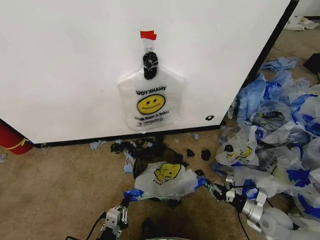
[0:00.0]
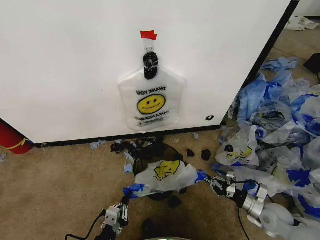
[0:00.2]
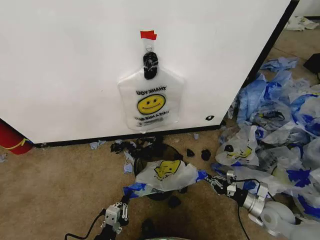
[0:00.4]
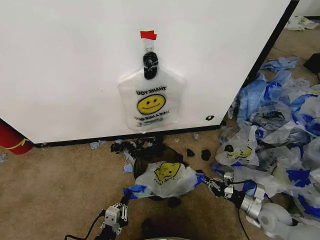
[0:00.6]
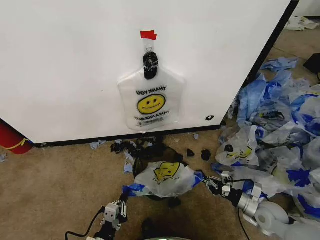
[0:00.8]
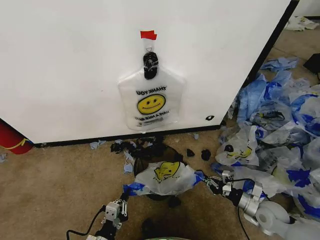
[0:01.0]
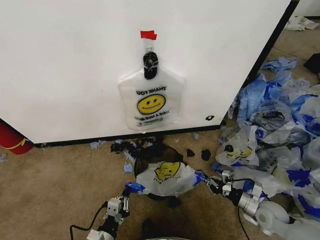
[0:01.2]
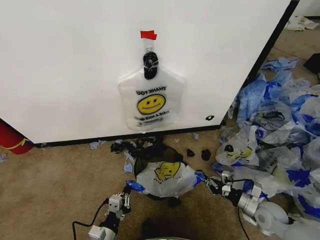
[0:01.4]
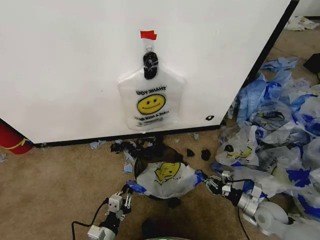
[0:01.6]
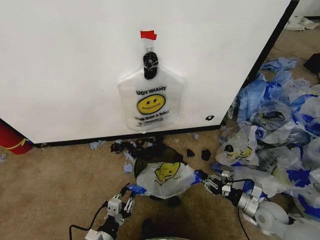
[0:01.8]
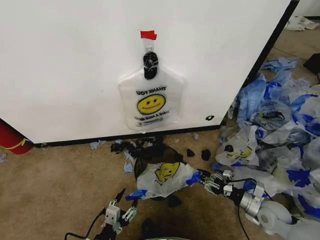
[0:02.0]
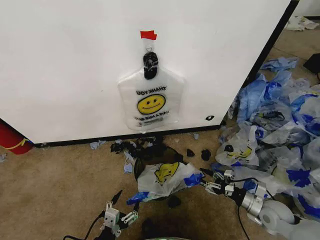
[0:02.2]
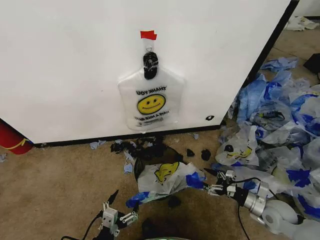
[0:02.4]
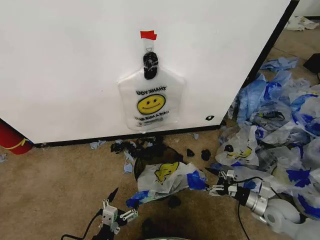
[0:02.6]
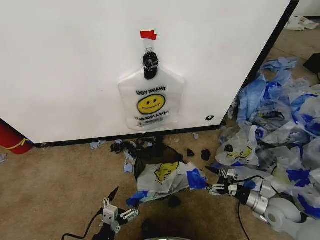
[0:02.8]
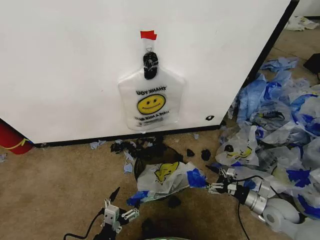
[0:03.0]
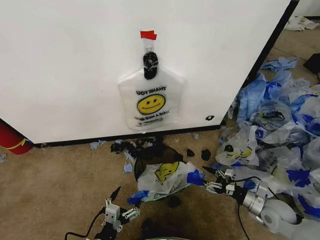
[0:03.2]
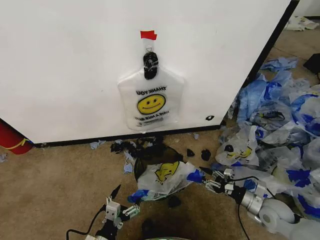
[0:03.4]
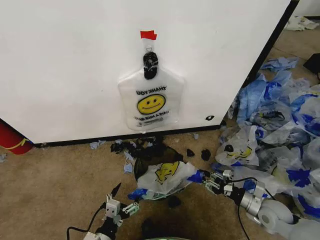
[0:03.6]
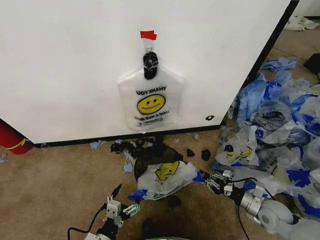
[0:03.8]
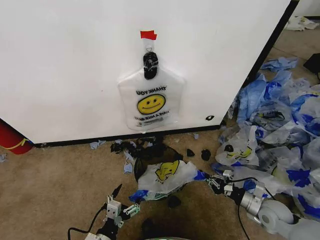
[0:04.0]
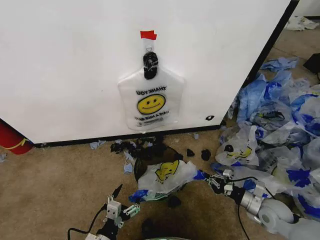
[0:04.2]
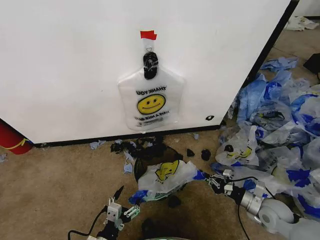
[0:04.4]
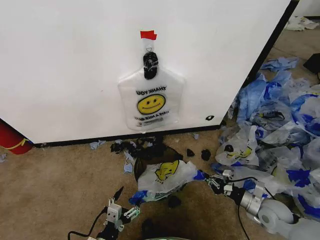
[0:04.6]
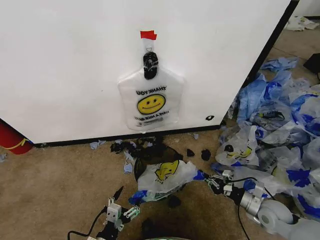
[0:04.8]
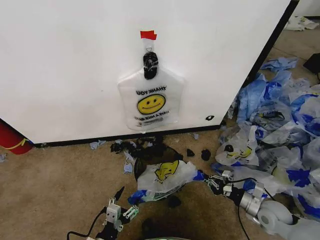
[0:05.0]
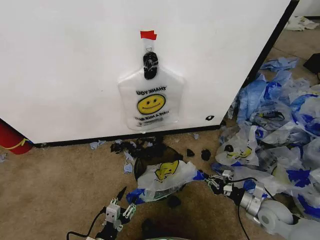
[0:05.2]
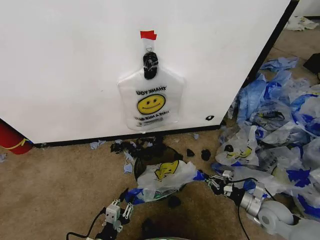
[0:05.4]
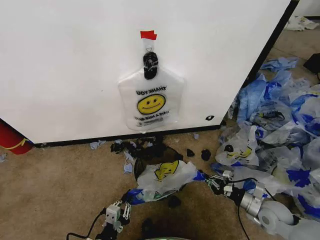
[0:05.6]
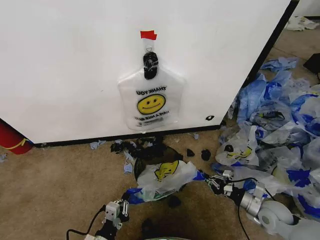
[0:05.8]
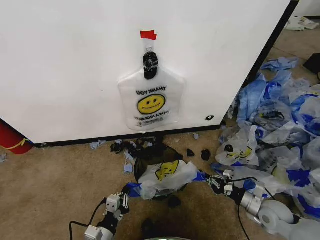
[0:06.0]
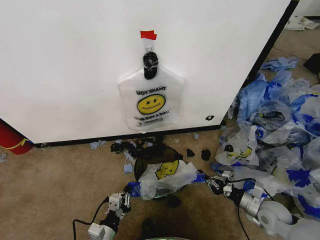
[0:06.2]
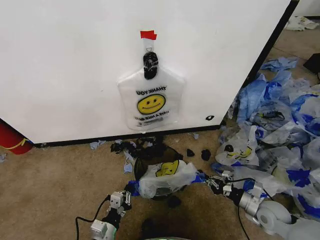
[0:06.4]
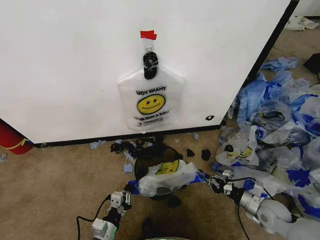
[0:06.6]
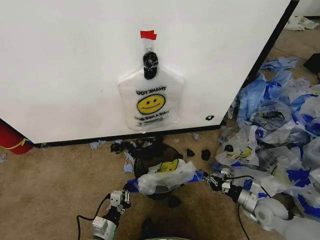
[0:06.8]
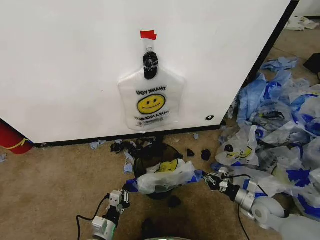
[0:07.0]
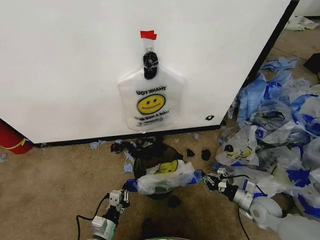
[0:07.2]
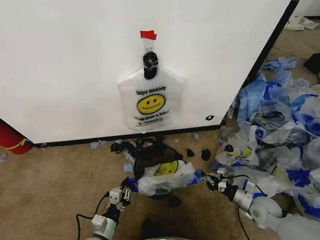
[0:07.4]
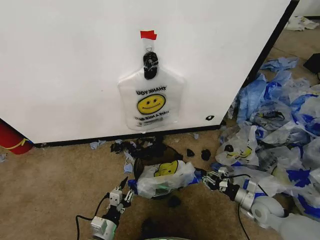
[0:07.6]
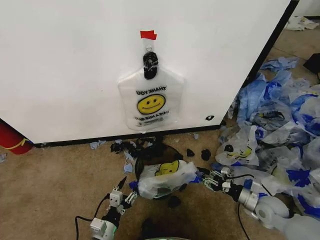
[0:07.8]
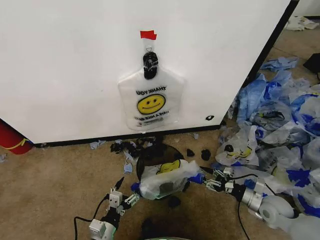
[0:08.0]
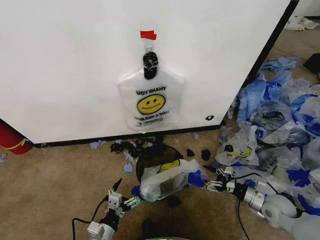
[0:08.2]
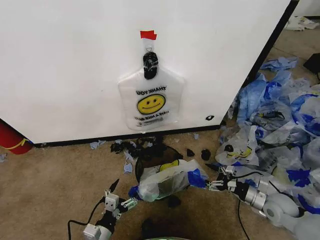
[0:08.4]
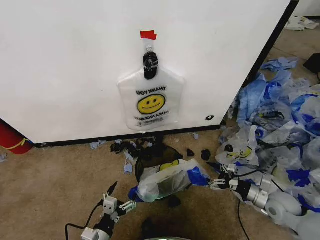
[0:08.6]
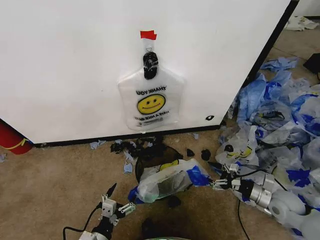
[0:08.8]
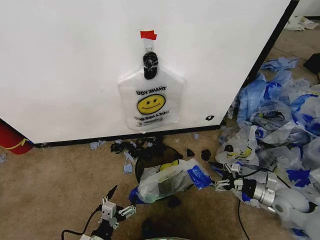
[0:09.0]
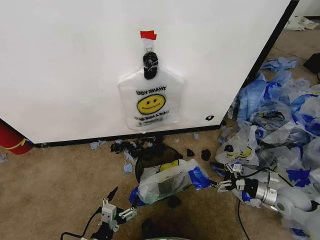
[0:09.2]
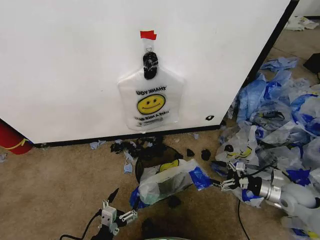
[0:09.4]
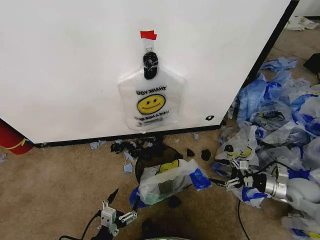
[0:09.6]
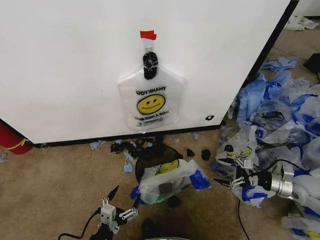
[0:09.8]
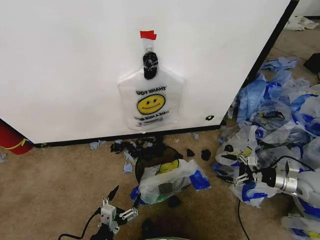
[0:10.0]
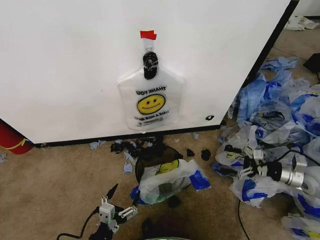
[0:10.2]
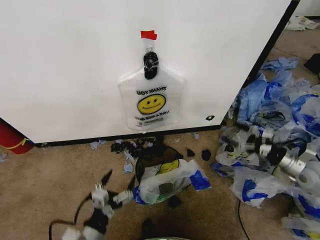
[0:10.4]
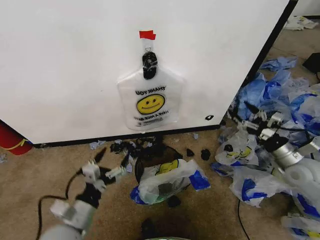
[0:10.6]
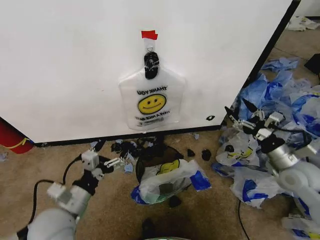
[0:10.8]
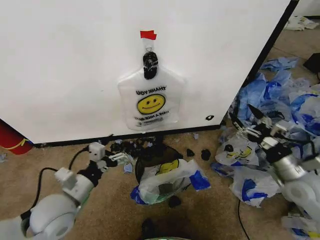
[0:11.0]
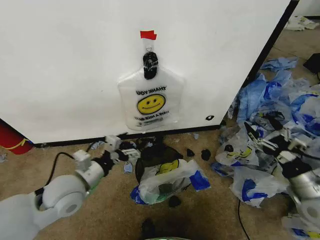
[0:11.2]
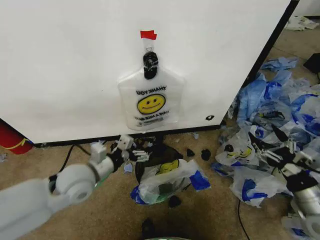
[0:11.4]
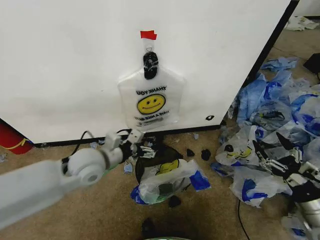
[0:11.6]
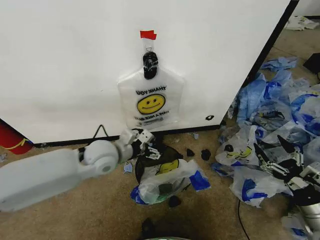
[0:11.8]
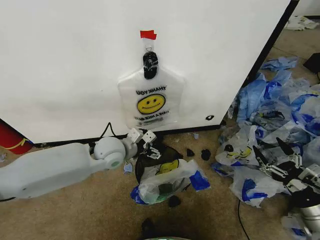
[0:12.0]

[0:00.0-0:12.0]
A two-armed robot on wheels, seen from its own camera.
Task of the whole recording: Pick up the garbage bag from the wall and place it over the trash bin.
0:00.0 to 0:01.6: There are only small adjustments of the grippers.
0:01.6 to 0:03.0: The right gripper opens its fingers, while the left gripper opens its fingers.
0:03.0 to 0:04.4: The right gripper closes.
0:04.4 to 0:06.0: The left gripper closes.
0:06.0 to 0:07.6: The left gripper opens up.
0:07.6 to 0:09.0: The left gripper is displaced backward by roughly 5 cm, and opens its fingers; the right gripper moves upward, roughly 5 cm, and opens.
0:09.0 to 0:10.4: The left gripper goes about 5 cm upward. Meanwhile the right gripper heads upward and to the right, covering approximately 10 cm.
0:10.4 to 0:12.0: The left gripper heads forward and upward, covering approximately 30 cm. Meanwhile the right gripper shifts approximately 15 cm backward.

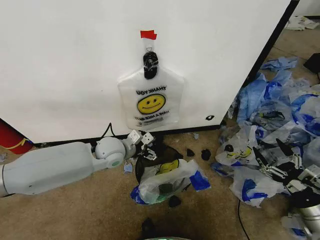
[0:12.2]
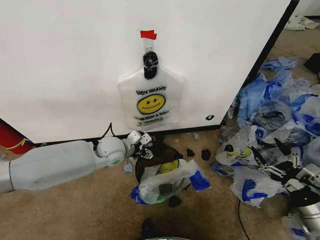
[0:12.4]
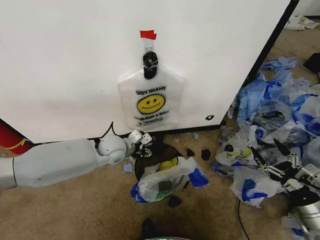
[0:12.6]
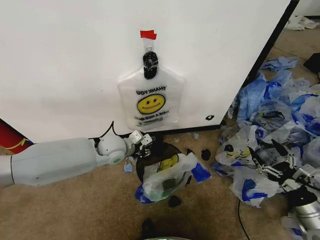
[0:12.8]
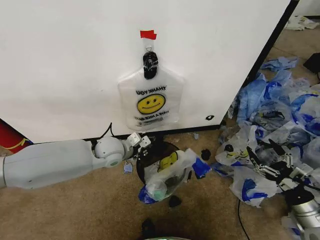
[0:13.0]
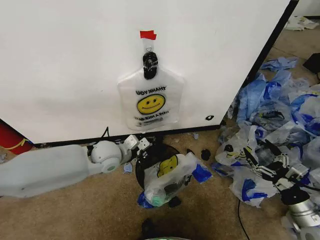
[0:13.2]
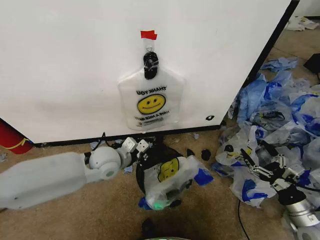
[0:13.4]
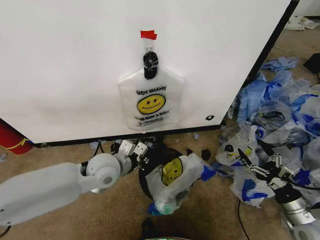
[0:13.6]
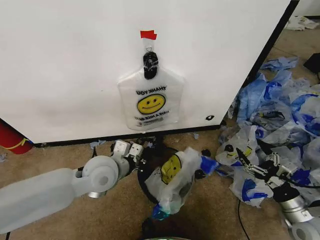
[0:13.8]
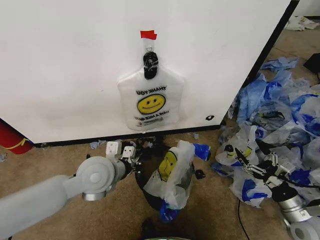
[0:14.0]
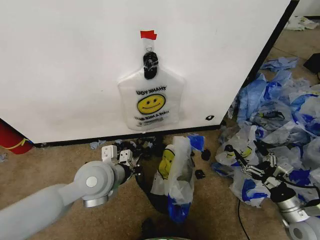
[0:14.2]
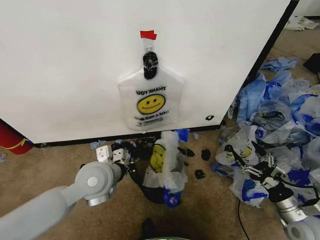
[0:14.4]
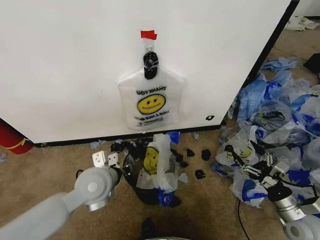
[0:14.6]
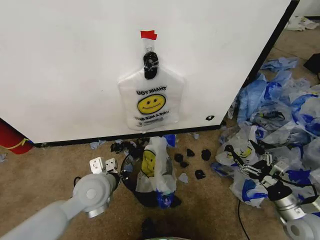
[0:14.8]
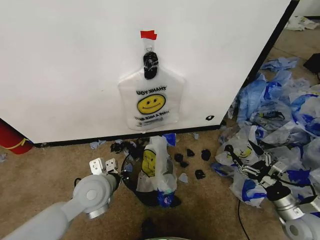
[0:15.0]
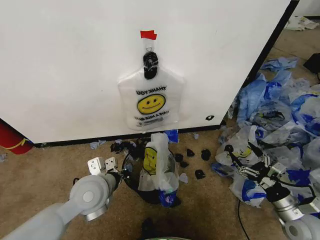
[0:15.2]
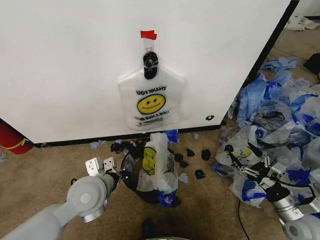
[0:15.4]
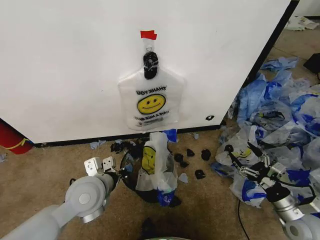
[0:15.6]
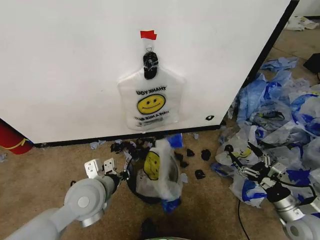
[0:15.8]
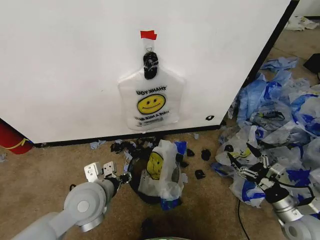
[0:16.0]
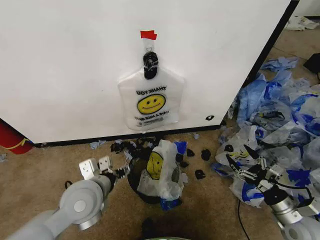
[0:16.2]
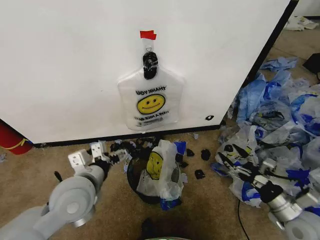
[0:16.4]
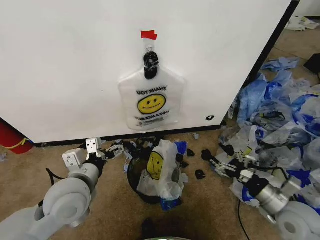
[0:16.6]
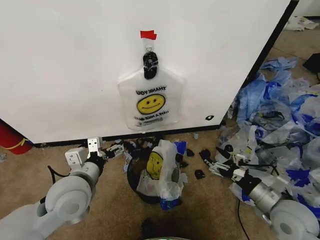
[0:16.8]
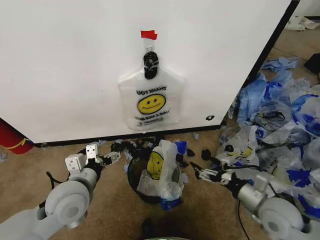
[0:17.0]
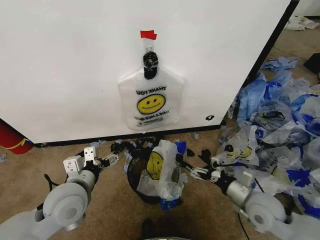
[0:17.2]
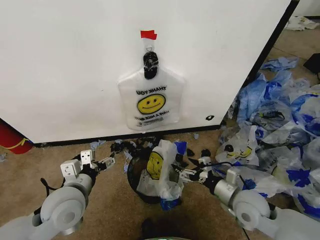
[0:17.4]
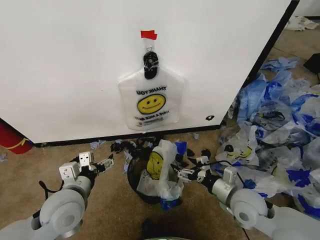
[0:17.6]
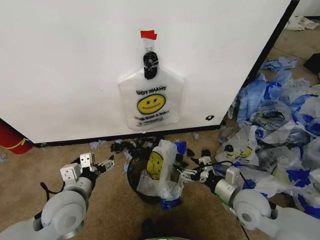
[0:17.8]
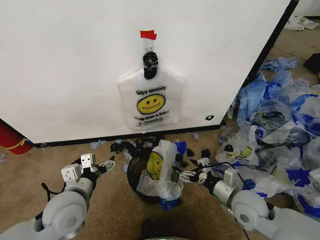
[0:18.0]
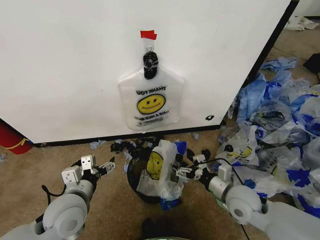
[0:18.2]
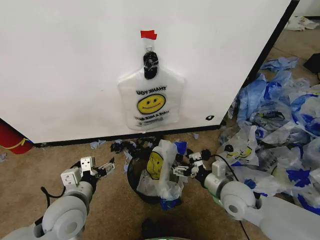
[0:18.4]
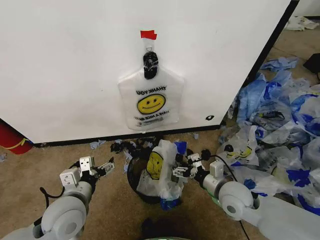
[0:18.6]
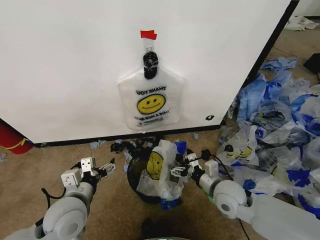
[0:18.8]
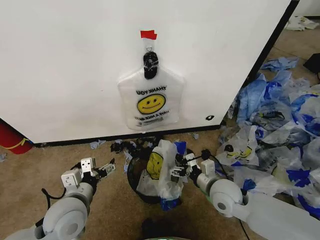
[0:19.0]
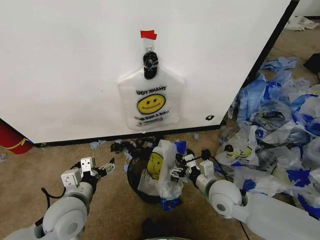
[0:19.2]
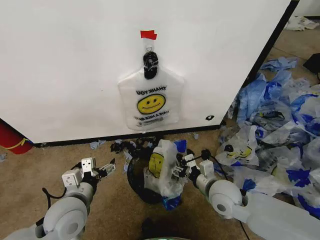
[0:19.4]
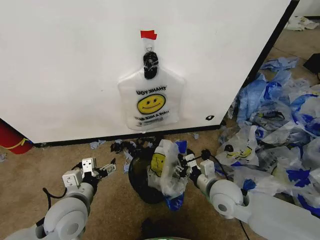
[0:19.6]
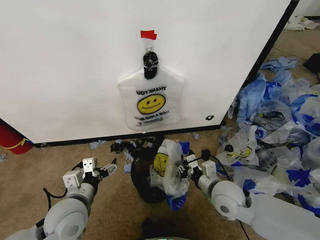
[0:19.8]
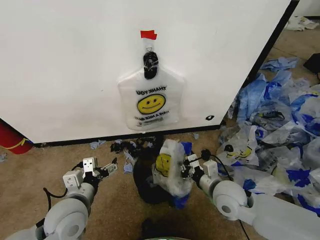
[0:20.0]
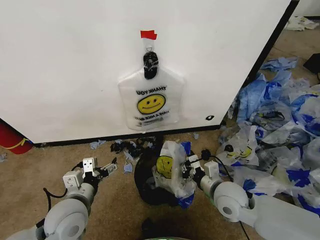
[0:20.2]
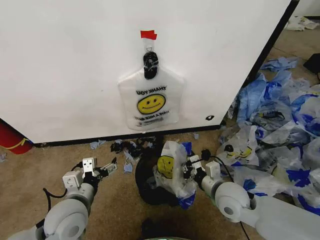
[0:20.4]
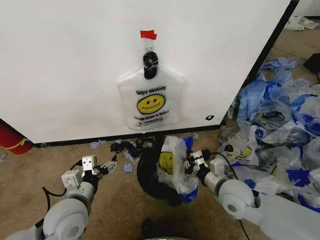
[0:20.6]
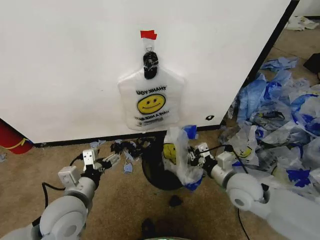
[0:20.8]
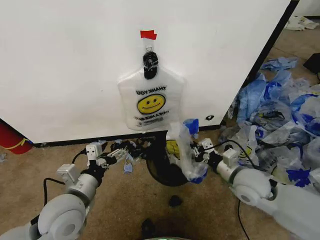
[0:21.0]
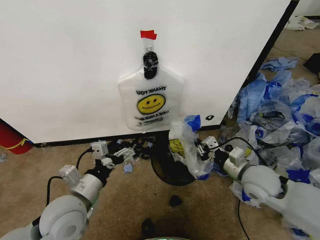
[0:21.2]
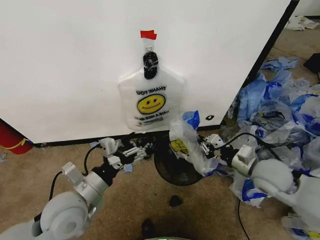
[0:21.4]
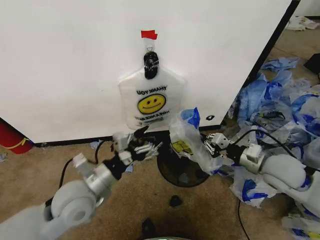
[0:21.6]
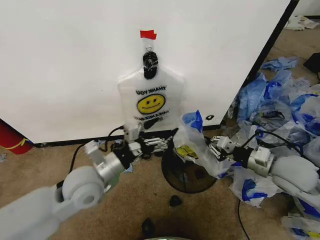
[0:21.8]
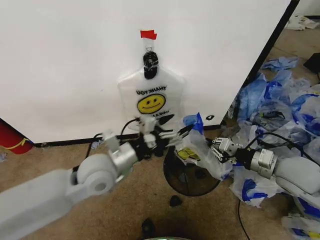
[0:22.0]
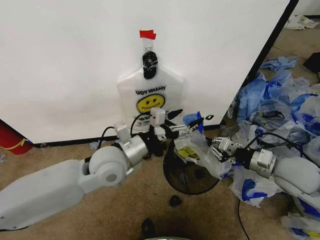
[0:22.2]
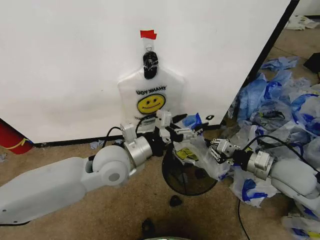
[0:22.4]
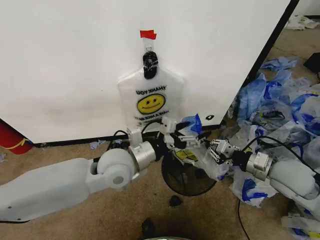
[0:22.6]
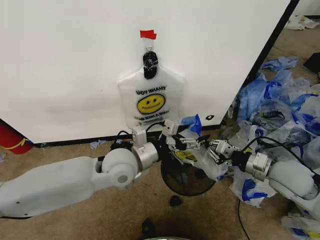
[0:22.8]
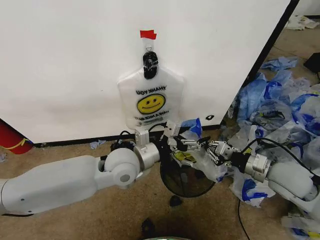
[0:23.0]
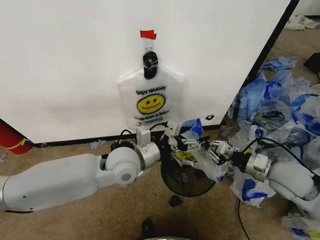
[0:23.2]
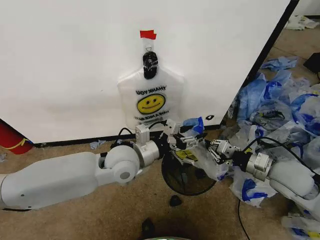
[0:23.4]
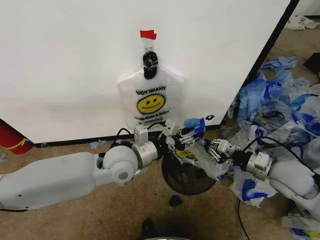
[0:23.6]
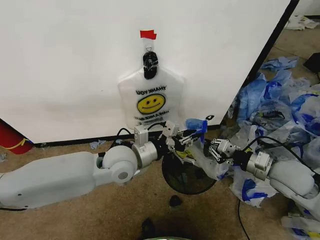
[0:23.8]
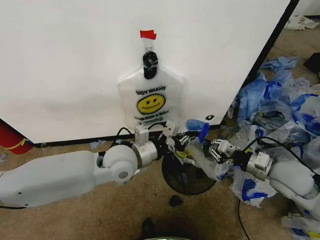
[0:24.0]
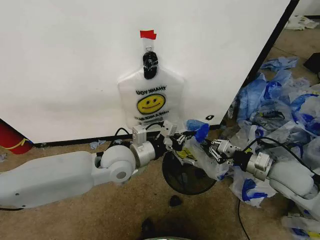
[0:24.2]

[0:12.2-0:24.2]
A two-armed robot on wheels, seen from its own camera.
Task of the whole recording: Pick up the garbage bag from the wall and place it over the trash bin.
0:12.2 to 0:13.8: The left gripper heads backward, covering roughly 10 cm, and closes its fingers.
0:13.8 to 0:15.2: The left gripper ends up about 5 cm from where it was.
0:15.2 to 0:16.6: The left gripper ends up roughly 5 cm from where it was, and opens its fingers. Meanwhile the right gripper moves to the left and upward, approximately 10 cm.
0:16.6 to 0:18.2: The right gripper moves to the left and forward, approximately 15 cm. The left gripper heads downward, covering approximately 5 cm.
0:18.2 to 0:19.8: The right gripper closes.
0:19.8 to 0:21.2: The right gripper shifts about 10 cm to the right and upward.
0:21.2 to 0:22.6: The left gripper goes about 15 cm to the right, forward and upward. The right gripper goes some 5 cm to the right.
0:22.6 to 0:24.2: The left gripper closes up.
